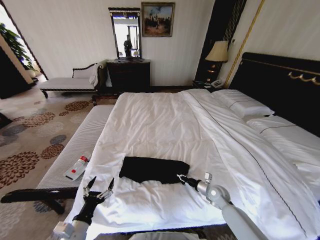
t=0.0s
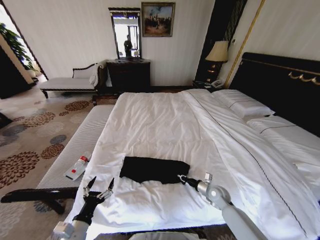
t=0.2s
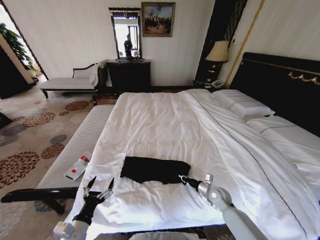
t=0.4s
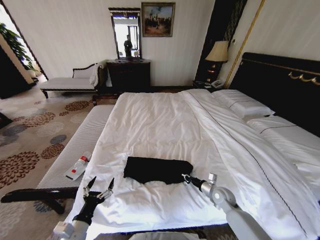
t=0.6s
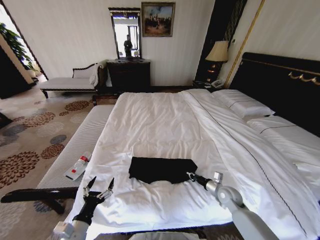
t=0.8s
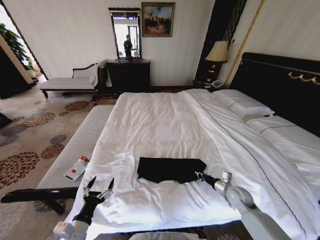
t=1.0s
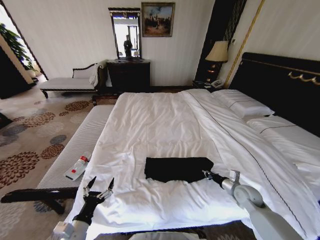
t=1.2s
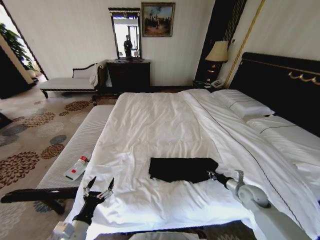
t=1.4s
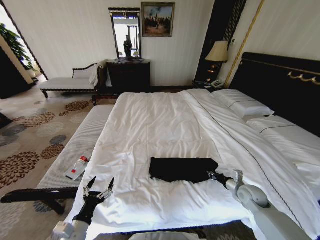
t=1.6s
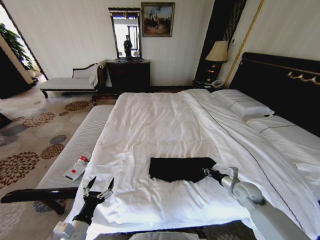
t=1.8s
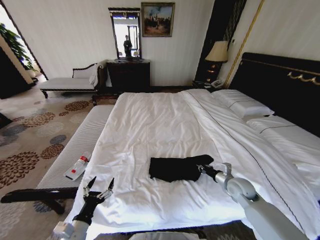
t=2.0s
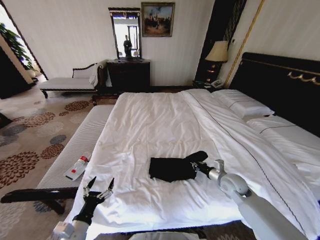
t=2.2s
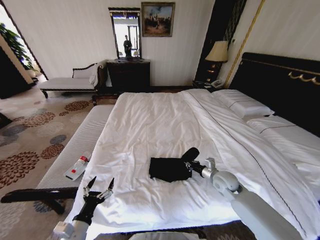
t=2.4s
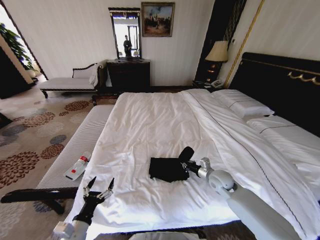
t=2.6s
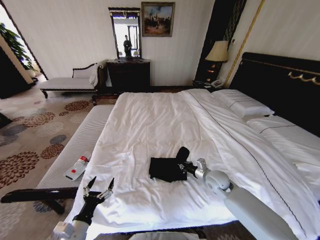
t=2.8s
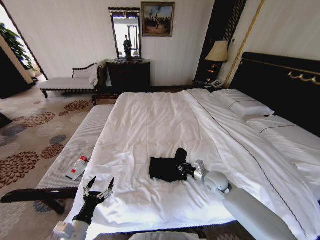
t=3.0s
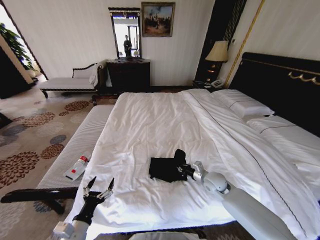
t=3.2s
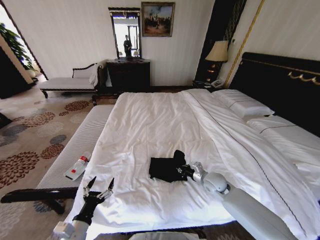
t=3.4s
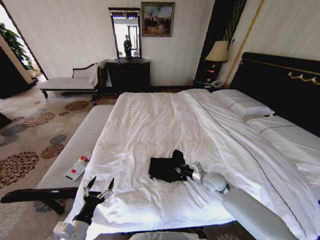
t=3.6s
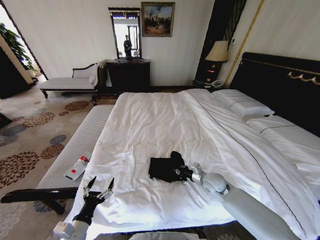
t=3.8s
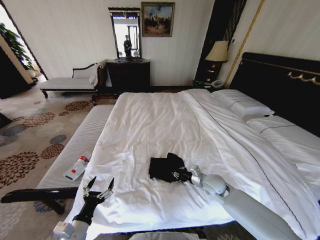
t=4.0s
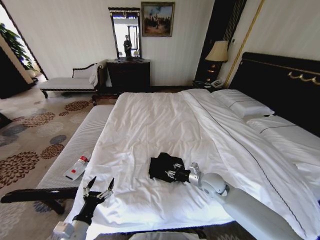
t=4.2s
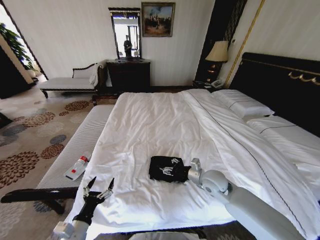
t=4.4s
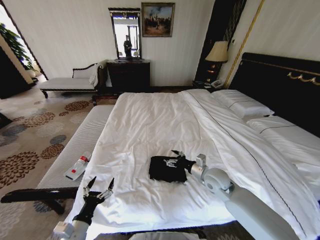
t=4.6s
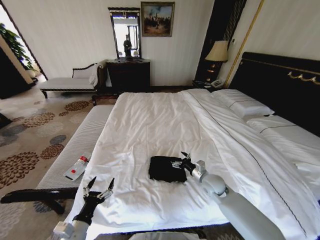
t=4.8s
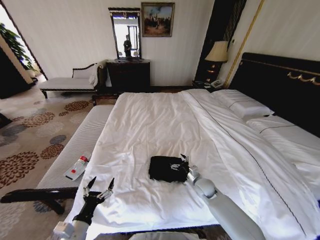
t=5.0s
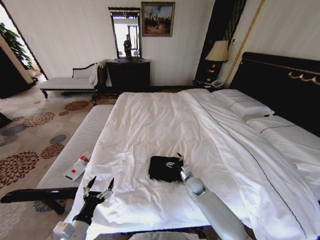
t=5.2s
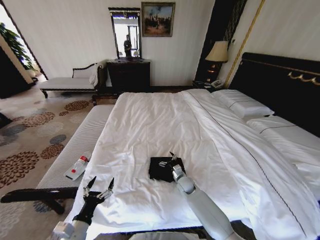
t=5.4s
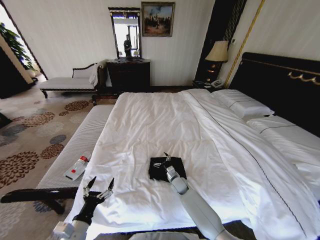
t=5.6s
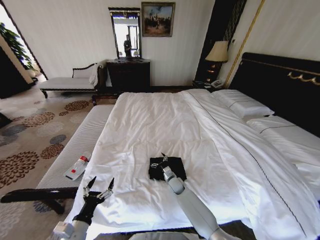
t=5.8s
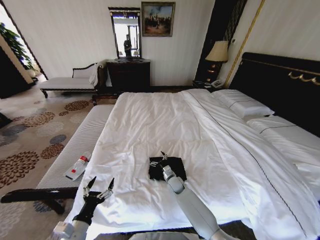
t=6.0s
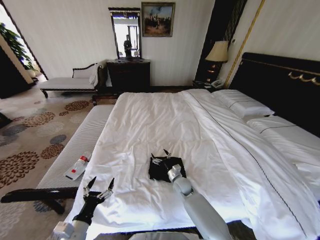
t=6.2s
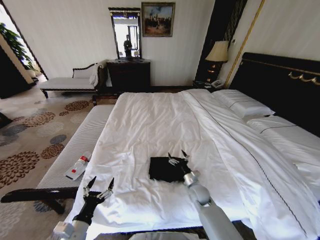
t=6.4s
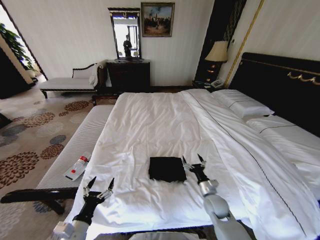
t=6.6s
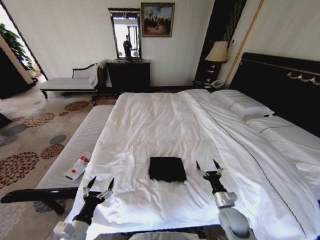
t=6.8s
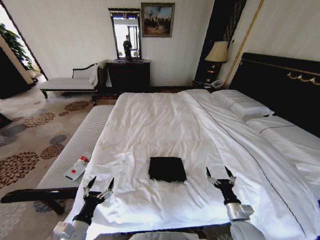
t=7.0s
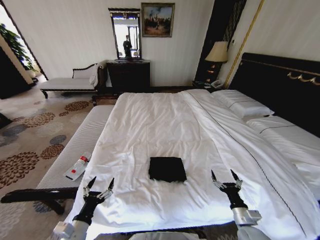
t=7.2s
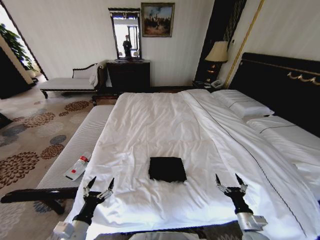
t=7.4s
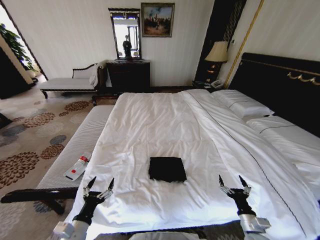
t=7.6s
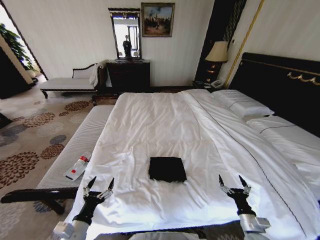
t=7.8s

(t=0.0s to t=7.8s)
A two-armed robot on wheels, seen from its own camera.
Task of the whole recording: Fold the clothes on the bed.
t=0.0s - t=1.6s: The right gripper travels to the right and upward by approximately 15 cm.
t=1.6s - t=3.2s: The right gripper shifts roughly 15 cm to the left.
t=3.2s - t=4.6s: The right gripper goes approximately 5 cm upward, and opens.
t=4.6s - t=6.2s: The right gripper shifts approximately 20 cm downward and to the left.
t=6.2s - t=7.8s: The right gripper moves to the right and backward, approximately 35 cm.

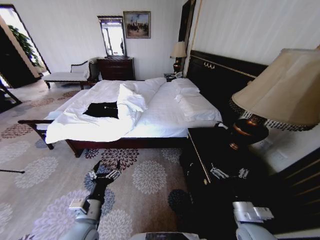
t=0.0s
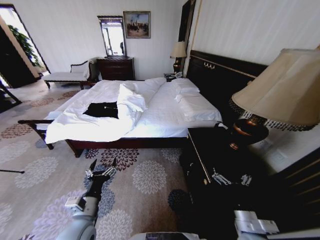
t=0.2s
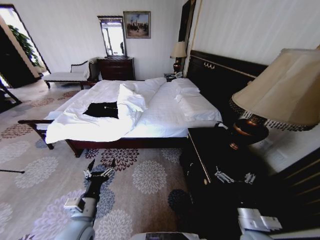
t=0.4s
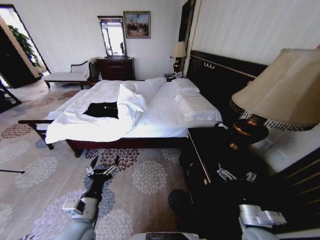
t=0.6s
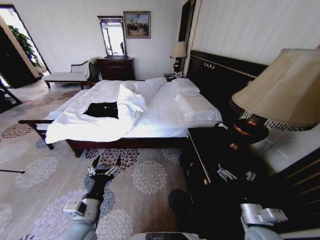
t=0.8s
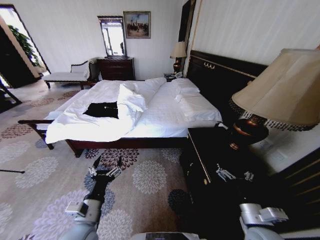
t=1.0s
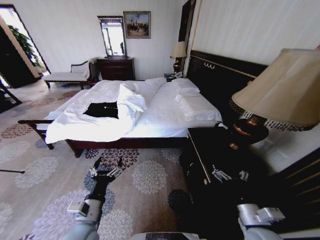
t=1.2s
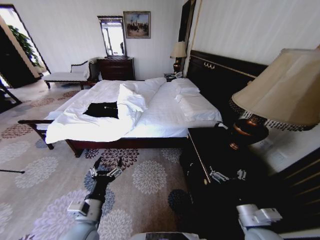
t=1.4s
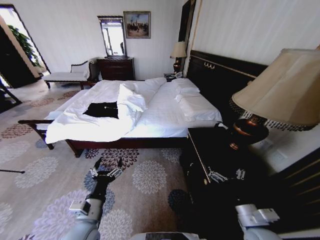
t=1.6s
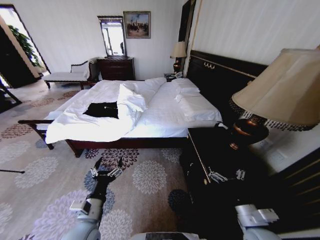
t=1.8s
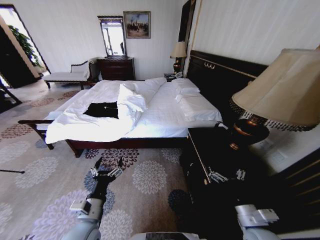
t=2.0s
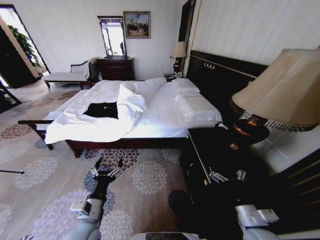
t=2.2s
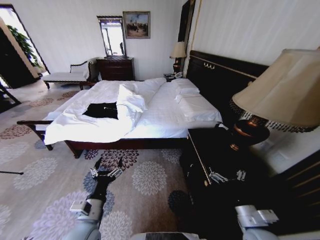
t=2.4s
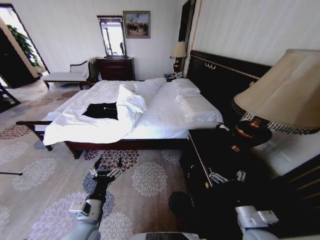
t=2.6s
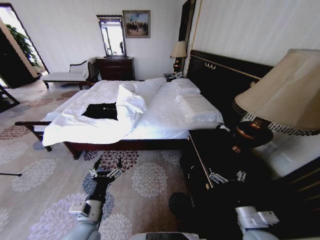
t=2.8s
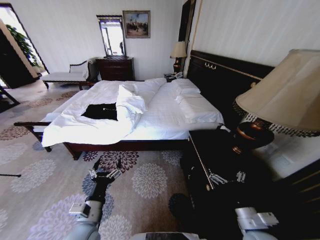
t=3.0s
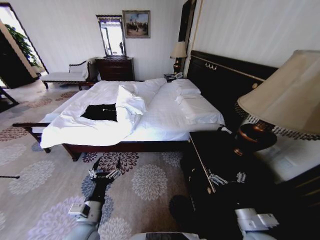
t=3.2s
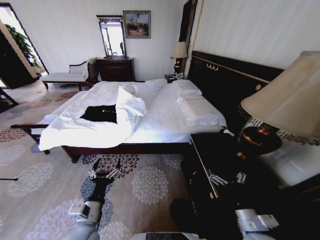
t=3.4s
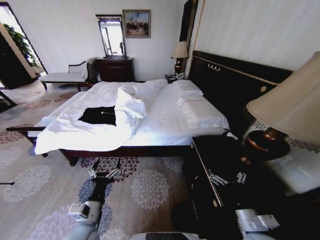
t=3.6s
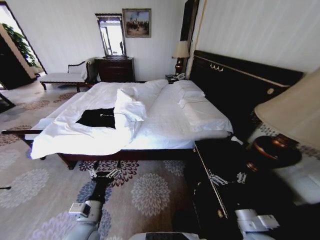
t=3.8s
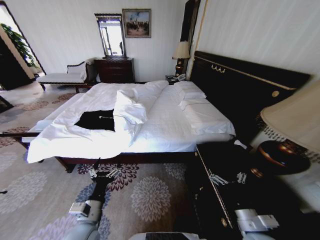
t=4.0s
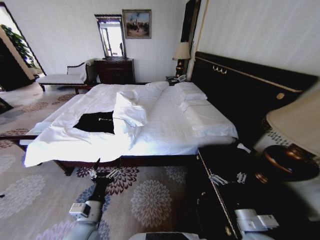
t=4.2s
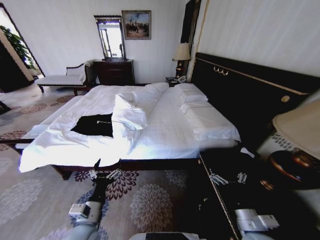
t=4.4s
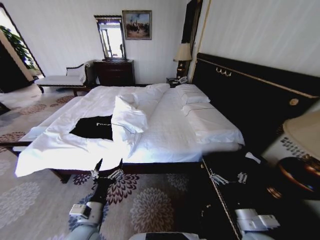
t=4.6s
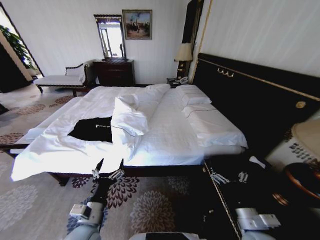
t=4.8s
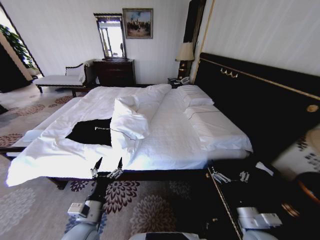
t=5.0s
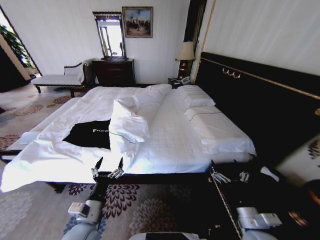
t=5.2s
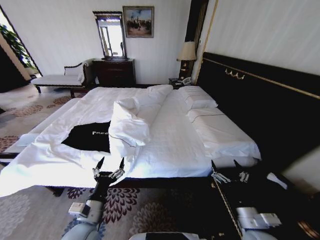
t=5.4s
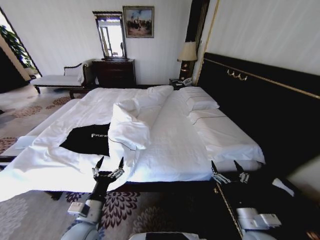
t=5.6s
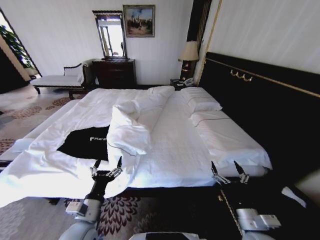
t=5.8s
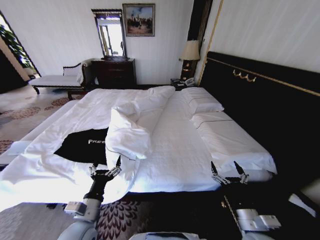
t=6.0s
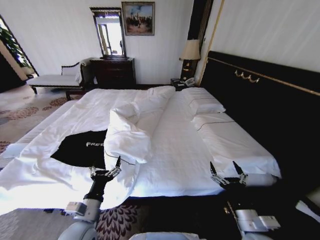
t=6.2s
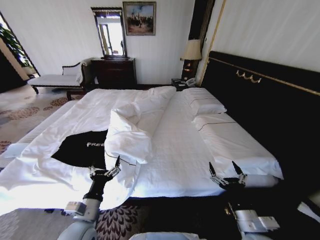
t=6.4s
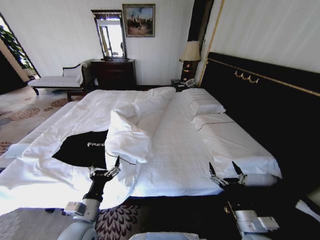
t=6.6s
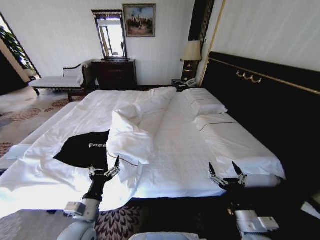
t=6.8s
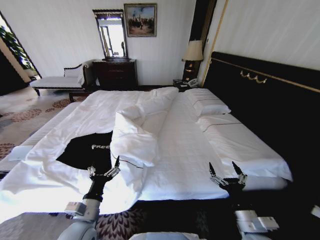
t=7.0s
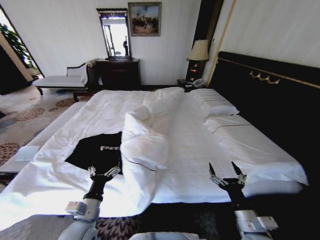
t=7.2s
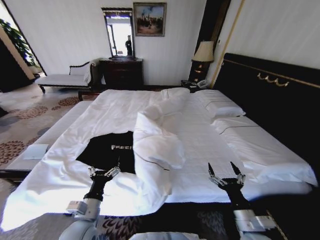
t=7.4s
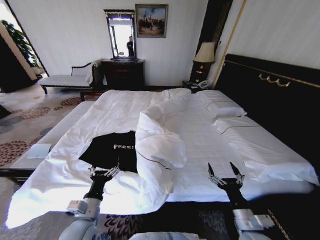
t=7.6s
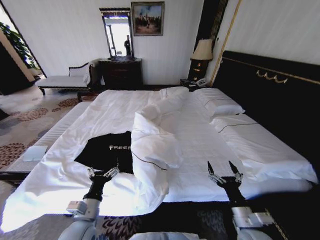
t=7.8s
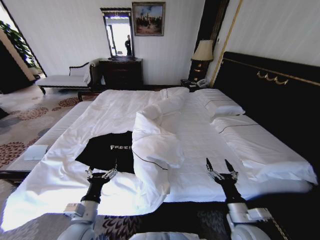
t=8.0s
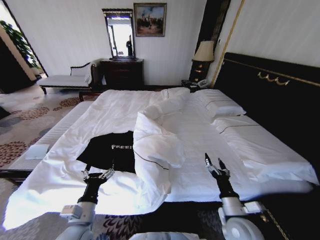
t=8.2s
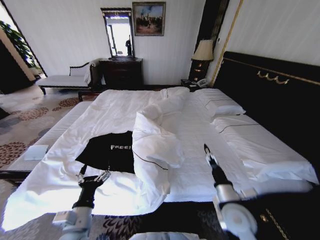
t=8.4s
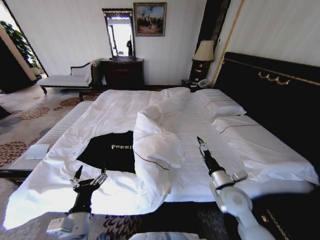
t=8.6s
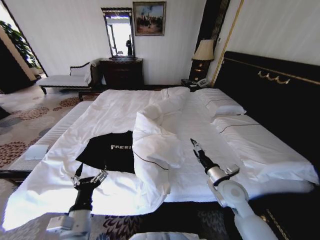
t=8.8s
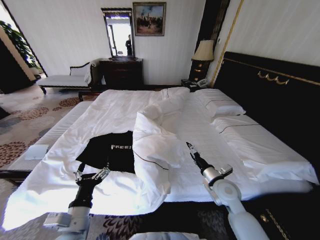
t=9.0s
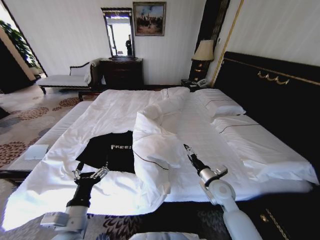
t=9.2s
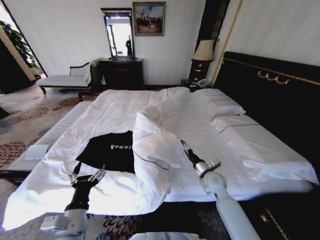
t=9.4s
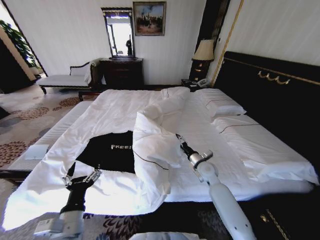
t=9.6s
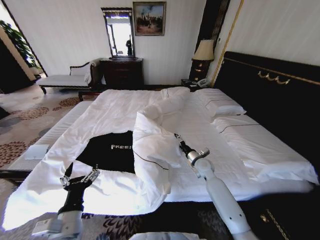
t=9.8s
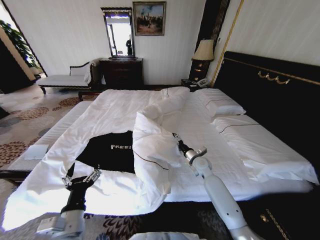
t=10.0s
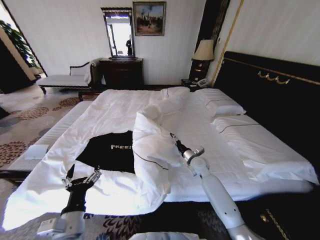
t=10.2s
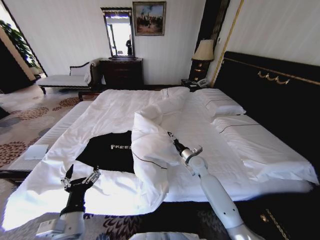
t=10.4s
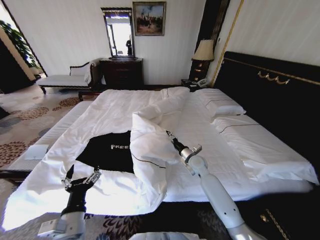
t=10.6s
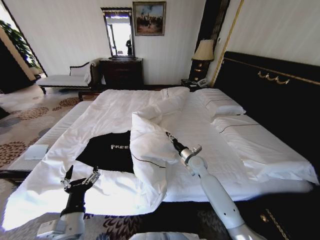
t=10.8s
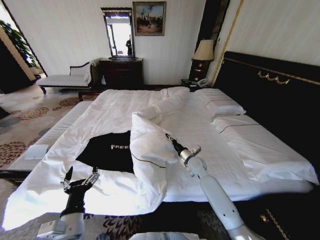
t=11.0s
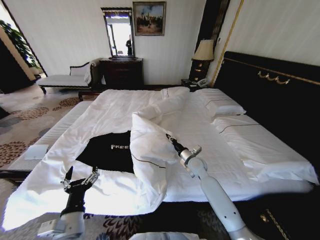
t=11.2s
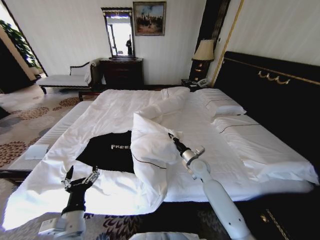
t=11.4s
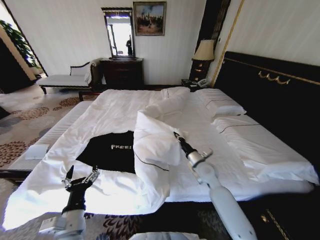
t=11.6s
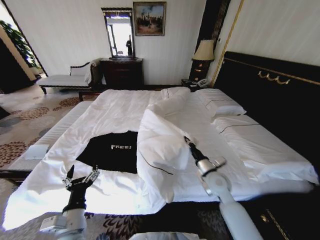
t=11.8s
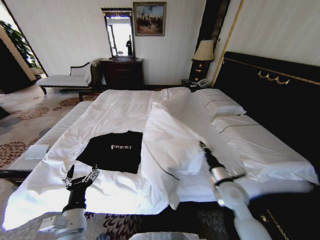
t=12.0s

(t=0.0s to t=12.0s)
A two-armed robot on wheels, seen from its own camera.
Task of the whole recording: Fold the clothes on the bed.
t=1.6s - t=3.0s: The two grippers keep their place.
t=7.6s - t=9.0s: The right gripper goes about 15 cm forward. The left gripper ends up roughly 5 cm from where it was.
t=9.0s - t=10.4s: The right gripper travels forward by approximately 15 cm.
t=10.4s - t=12.0s: The right gripper goes approximately 15 cm backward, and closes its fingers.

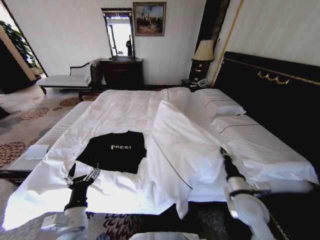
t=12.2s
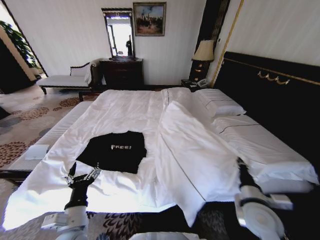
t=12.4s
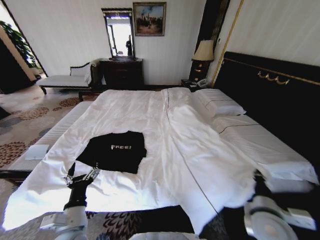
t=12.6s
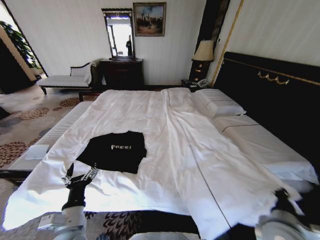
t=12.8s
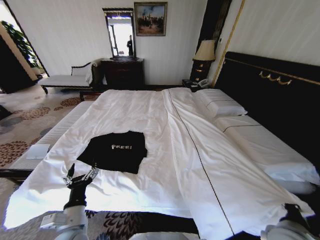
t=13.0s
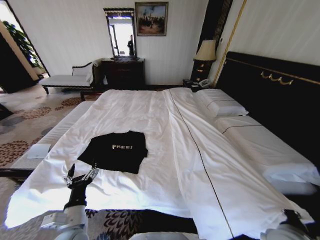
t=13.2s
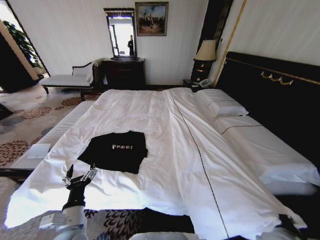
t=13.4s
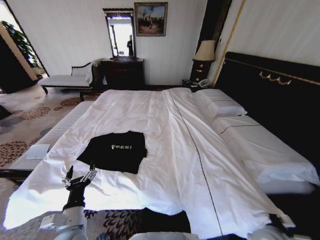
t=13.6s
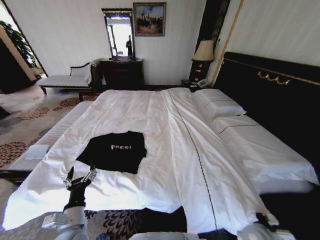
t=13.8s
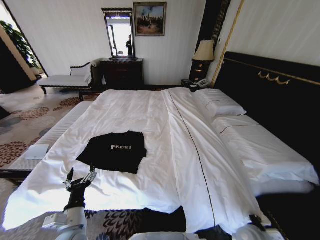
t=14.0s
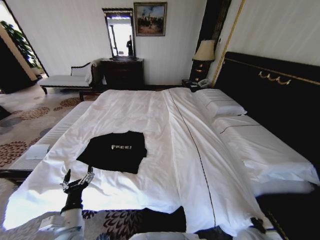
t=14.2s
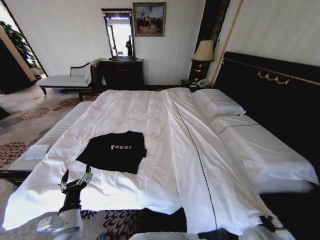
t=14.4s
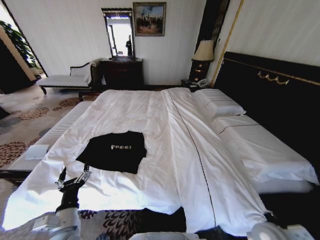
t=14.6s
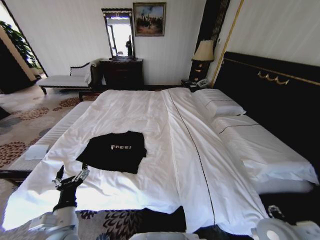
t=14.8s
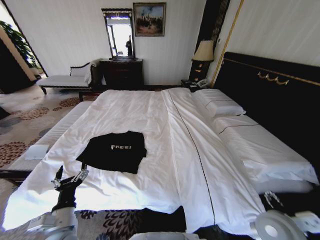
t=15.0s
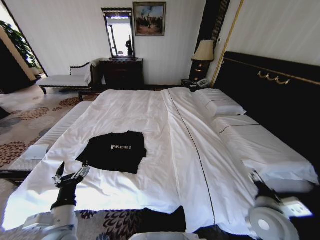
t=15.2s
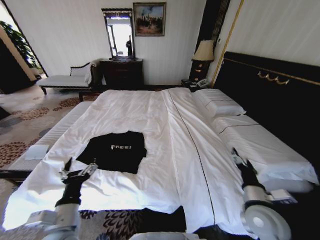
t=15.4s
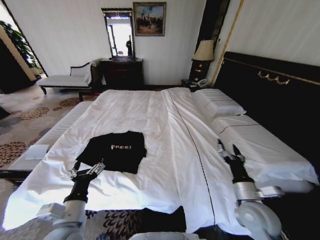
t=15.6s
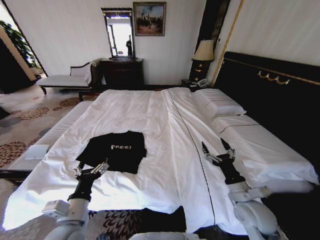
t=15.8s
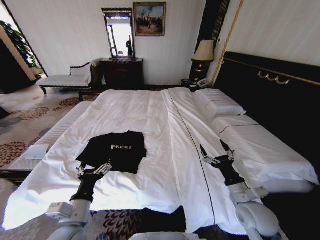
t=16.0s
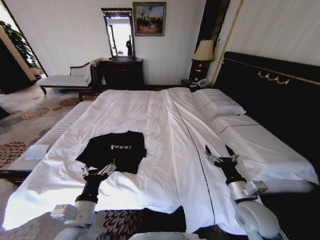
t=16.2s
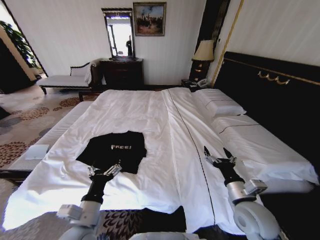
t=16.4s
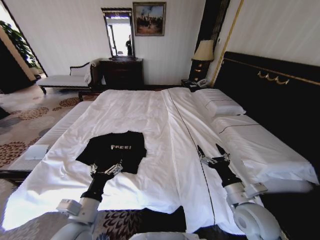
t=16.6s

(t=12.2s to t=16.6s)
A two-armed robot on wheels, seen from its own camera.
Task of the whole recording: Fold the clothes on the bed.
t=12.2s - t=13.6s: The right gripper goes roughly 10 cm backward, downward and to the right.
t=13.6s - t=15.2s: The right gripper heads upward, covering about 10 cm, and opens up.
t=15.2s - t=16.6s: The left gripper is displaced to the right by some 5 cm.
